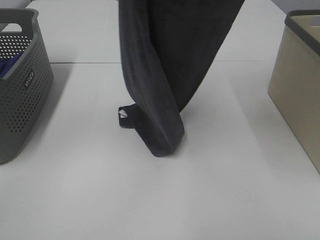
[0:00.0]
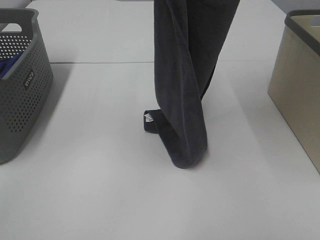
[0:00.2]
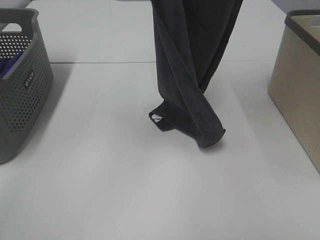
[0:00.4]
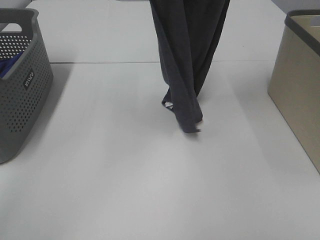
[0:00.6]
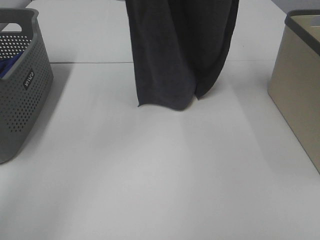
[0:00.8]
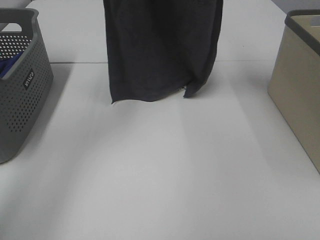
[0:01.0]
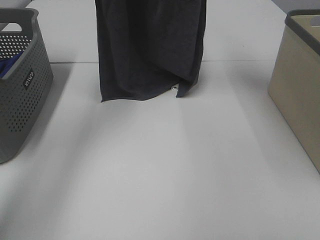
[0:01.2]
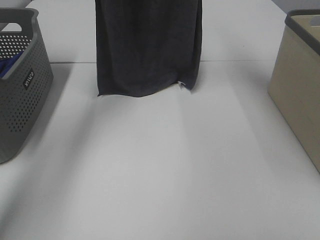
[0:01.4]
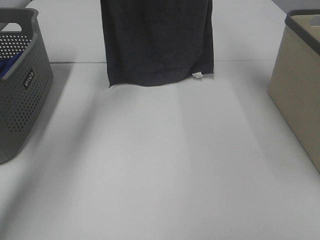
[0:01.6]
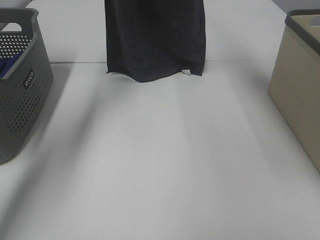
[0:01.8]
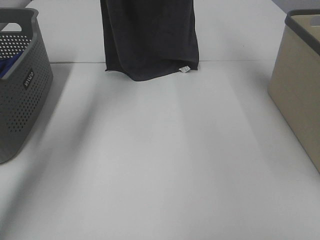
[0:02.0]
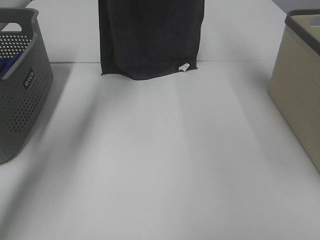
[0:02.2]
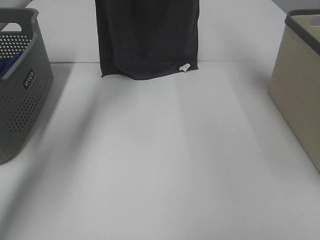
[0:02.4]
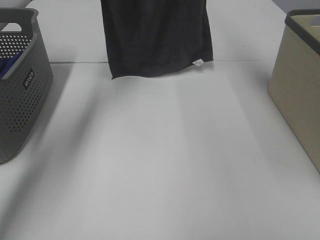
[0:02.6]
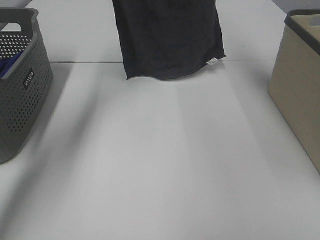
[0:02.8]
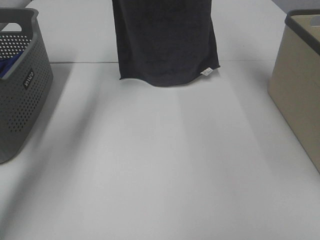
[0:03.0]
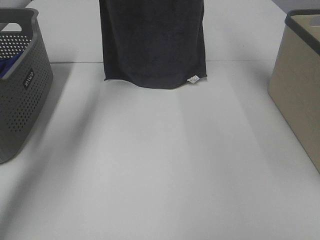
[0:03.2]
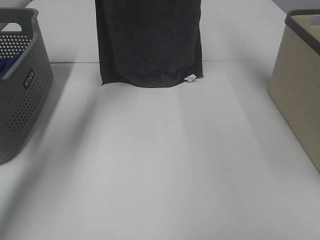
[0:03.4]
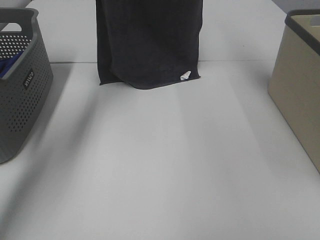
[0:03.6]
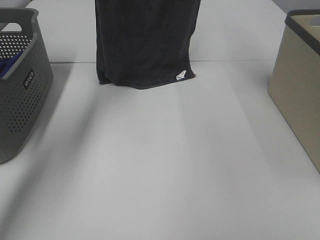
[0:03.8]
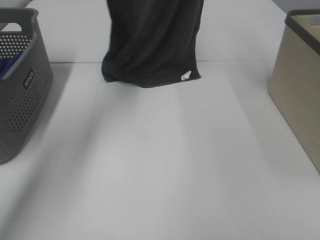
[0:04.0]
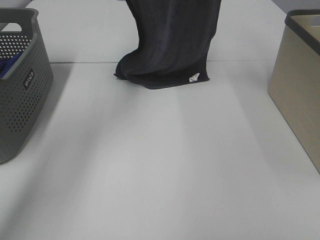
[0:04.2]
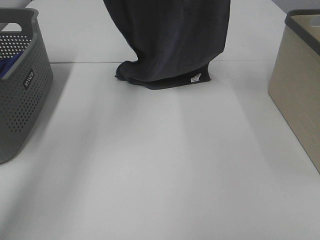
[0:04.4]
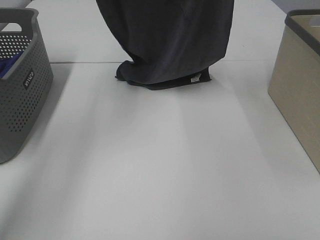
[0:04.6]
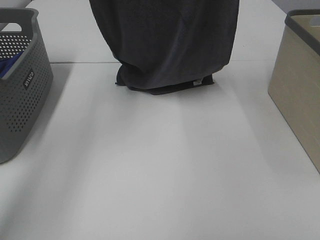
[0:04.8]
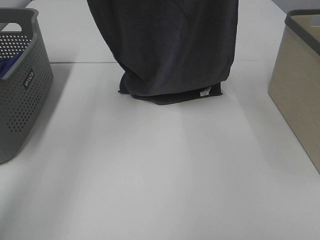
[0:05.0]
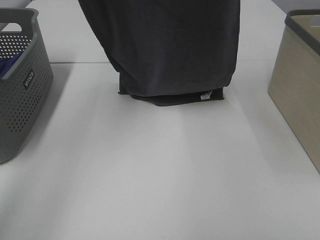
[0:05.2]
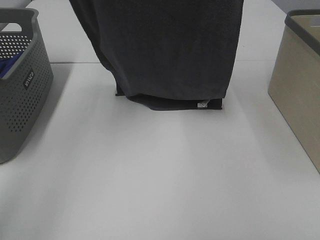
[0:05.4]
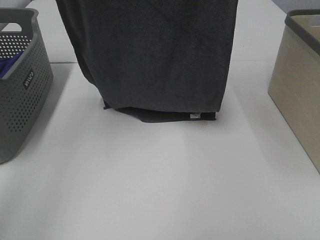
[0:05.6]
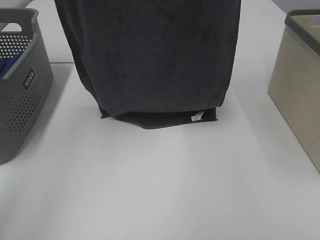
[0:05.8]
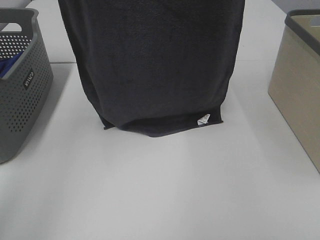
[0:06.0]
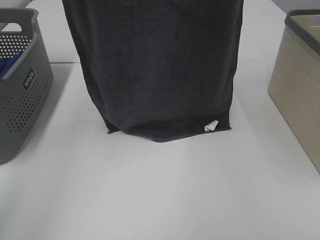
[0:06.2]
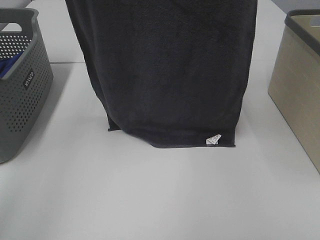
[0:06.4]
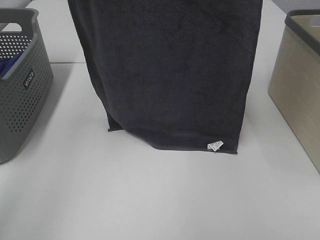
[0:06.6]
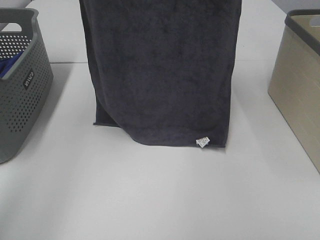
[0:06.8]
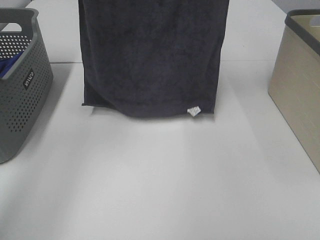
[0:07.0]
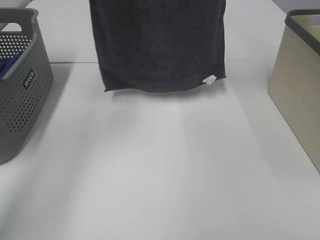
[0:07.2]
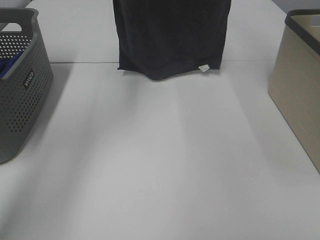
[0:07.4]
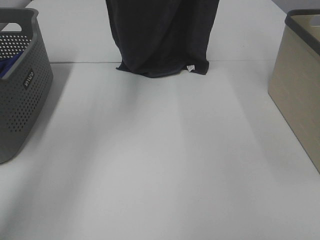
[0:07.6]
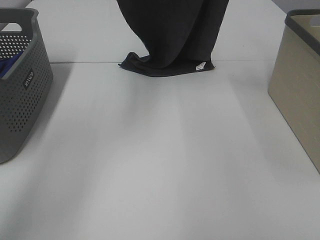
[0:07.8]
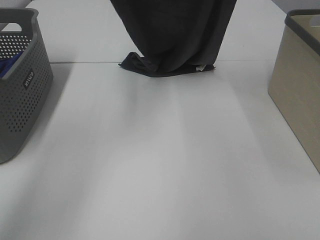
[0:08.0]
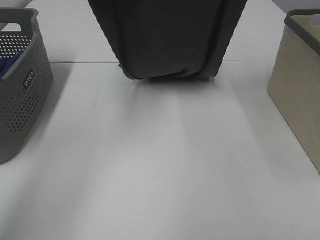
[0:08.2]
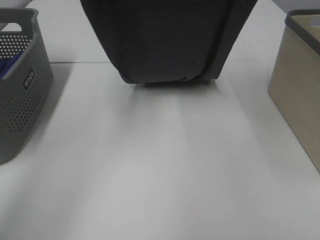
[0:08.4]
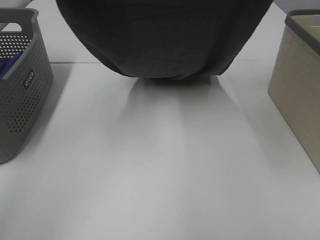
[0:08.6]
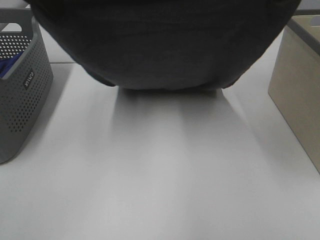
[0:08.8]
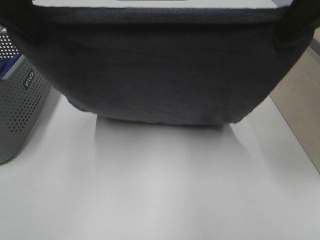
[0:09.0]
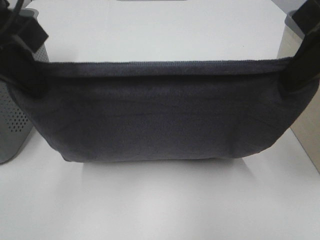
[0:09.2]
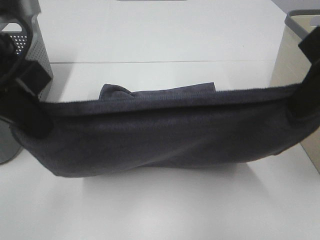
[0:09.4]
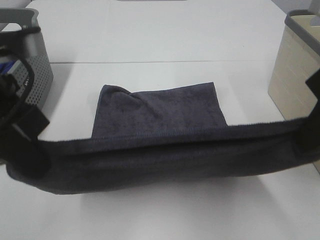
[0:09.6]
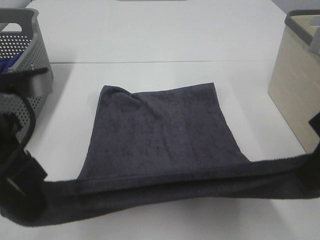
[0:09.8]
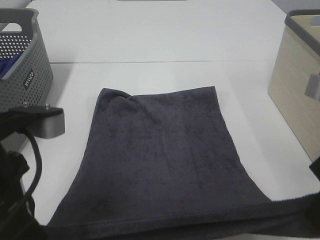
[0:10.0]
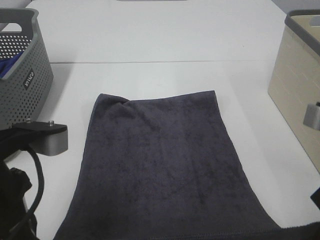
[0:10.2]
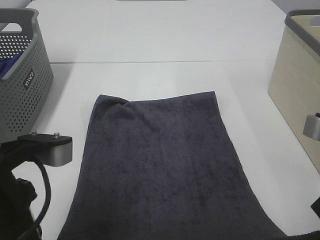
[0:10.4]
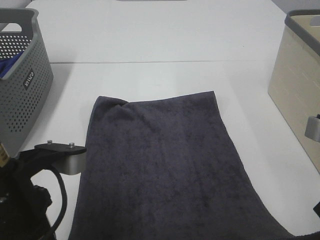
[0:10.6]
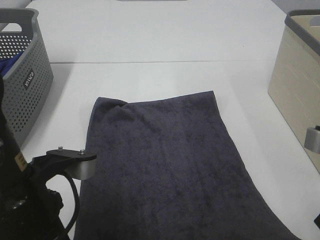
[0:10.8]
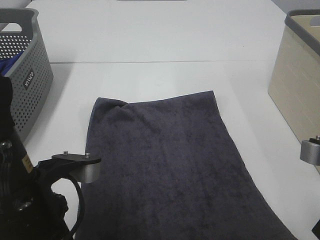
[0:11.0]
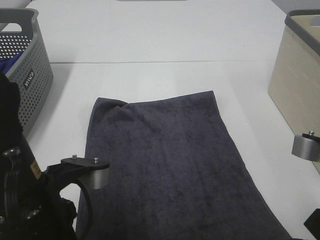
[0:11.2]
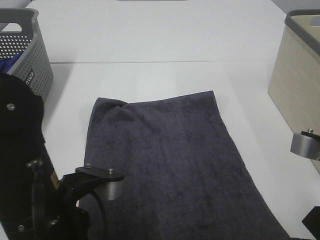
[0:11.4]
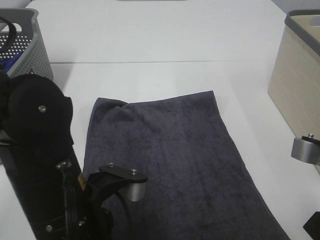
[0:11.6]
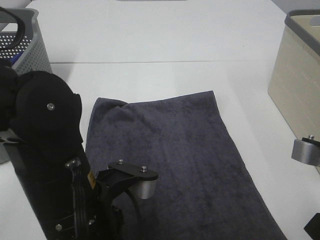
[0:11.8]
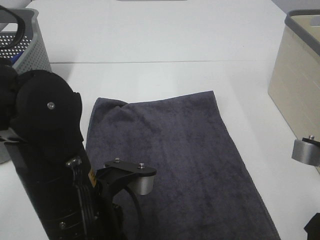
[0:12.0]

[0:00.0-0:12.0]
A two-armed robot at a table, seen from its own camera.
Task of the whole recording: Remove the towel and place it.
Step, 0:00.0 to 0:07.4: Left hand: spread the grey towel flat on the table.
Step, 0:00.0 to 0:07.4: Right hand: spread the grey towel flat on the table.
0:00.0 to 0:01.6: The grippers both shift forward by some 20 cm.
0:01.6 to 0:03.0: The grippers stay close to where they were, moving slightly.
0:03.0 to 0:04.4: Both grippers move backward, about 10 cm.
0:04.4 to 0:06.0: The right gripper is displaced backward by approximately 10 cm; the left gripper travels backward and upward by about 15 cm.
0:06.0 to 0:07.6: The left gripper moves forward and downward, about 15 cm. Meanwhile the right gripper moves forward, about 15 cm.
0:07.6 to 0:09.0: The right gripper moves backward and downward, some 25 cm; the left gripper travels backward by roughly 25 cm.
0:09.0 to 0:10.4: The grippers both shift downward and backward by some 20 cm.
0:10.4 to 0:12.0: The left gripper heads to the right and downward, covering about 10 cm, and opens up. The right gripper opens its fingers.

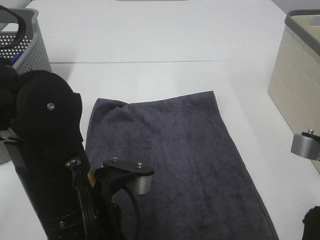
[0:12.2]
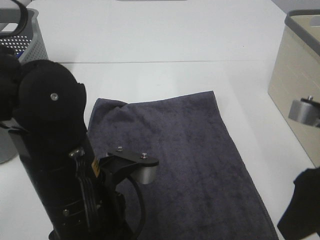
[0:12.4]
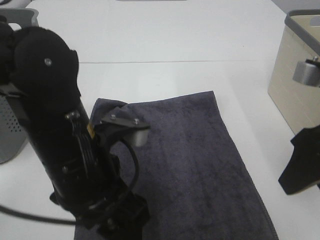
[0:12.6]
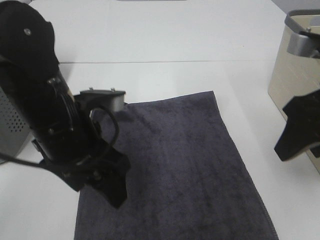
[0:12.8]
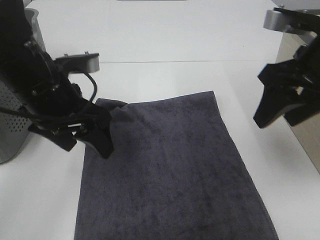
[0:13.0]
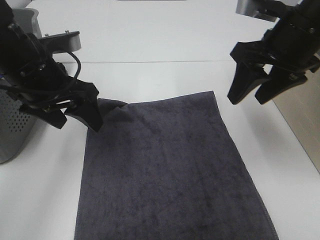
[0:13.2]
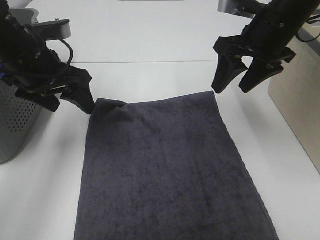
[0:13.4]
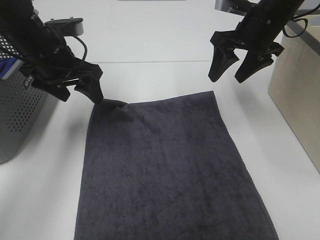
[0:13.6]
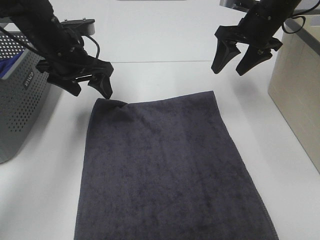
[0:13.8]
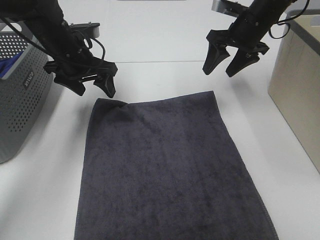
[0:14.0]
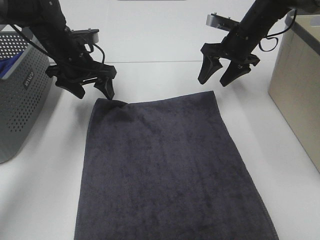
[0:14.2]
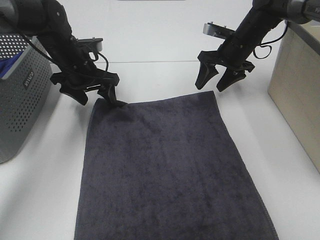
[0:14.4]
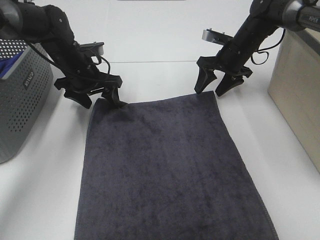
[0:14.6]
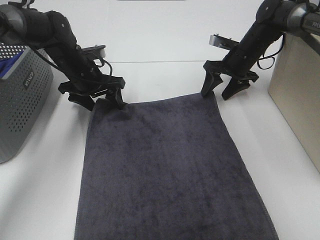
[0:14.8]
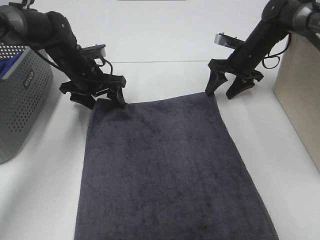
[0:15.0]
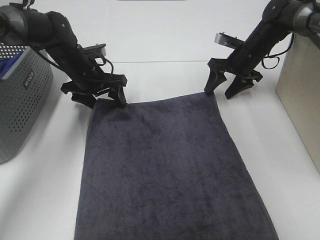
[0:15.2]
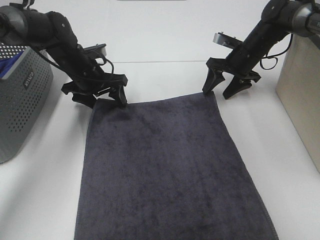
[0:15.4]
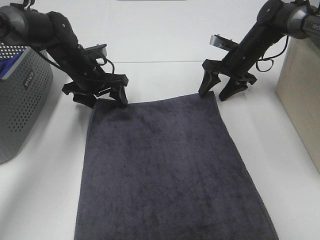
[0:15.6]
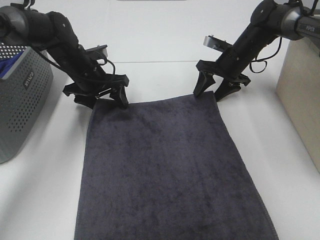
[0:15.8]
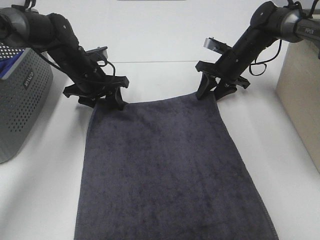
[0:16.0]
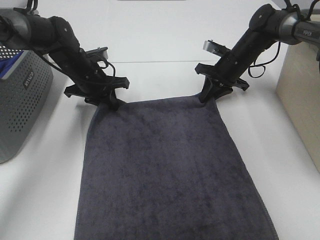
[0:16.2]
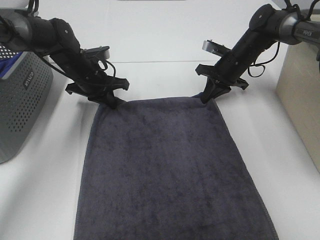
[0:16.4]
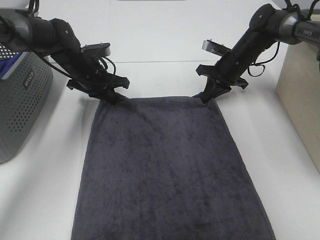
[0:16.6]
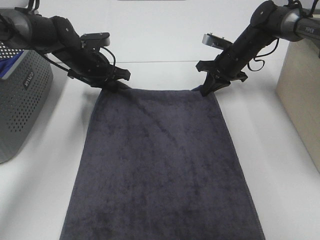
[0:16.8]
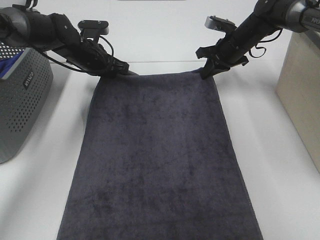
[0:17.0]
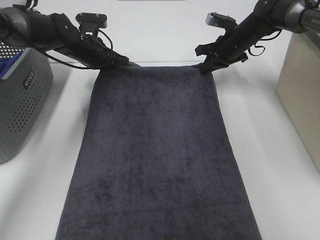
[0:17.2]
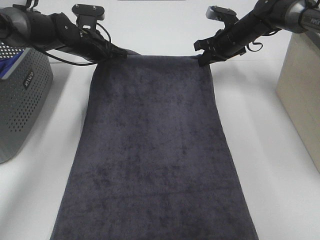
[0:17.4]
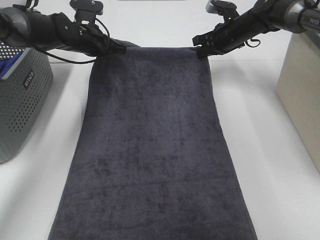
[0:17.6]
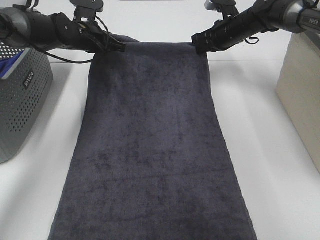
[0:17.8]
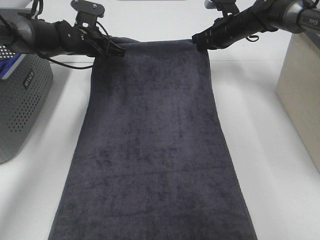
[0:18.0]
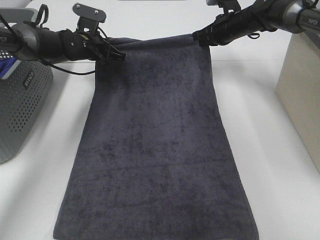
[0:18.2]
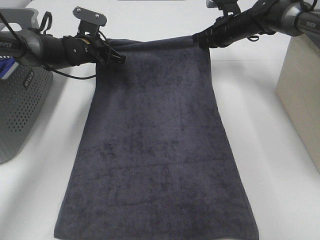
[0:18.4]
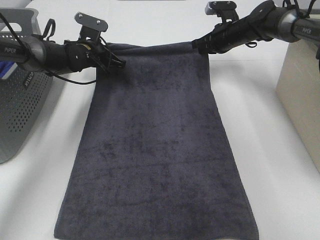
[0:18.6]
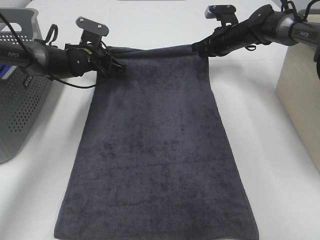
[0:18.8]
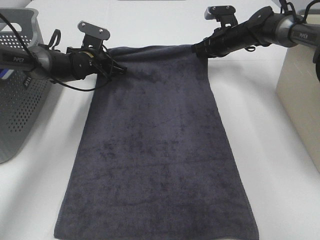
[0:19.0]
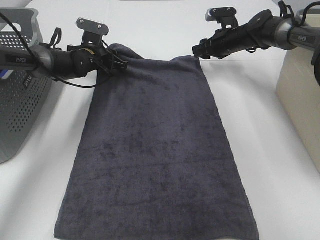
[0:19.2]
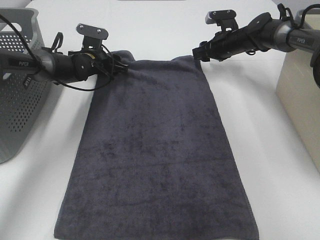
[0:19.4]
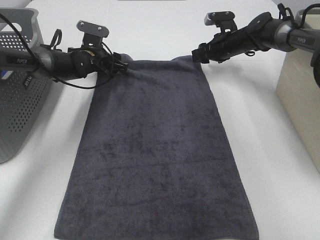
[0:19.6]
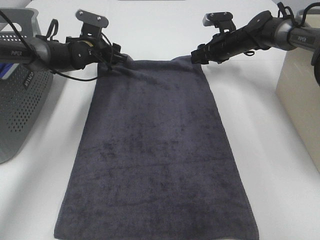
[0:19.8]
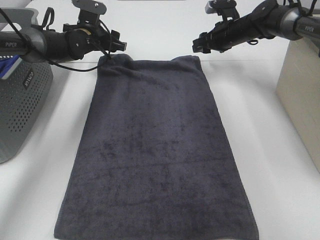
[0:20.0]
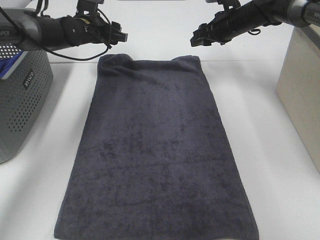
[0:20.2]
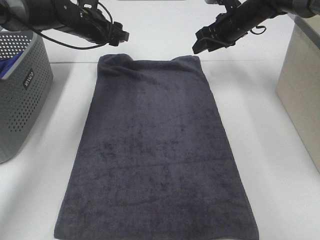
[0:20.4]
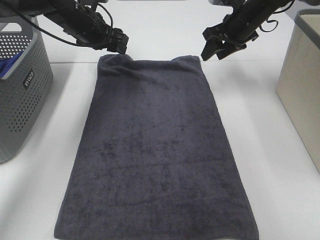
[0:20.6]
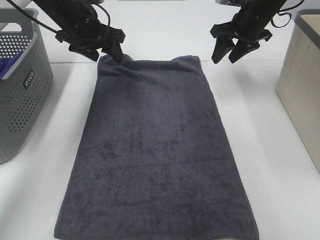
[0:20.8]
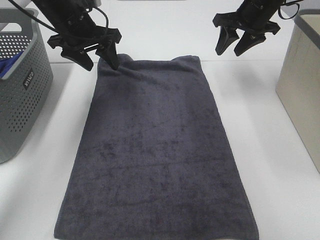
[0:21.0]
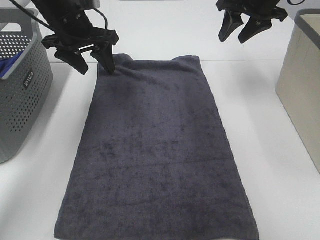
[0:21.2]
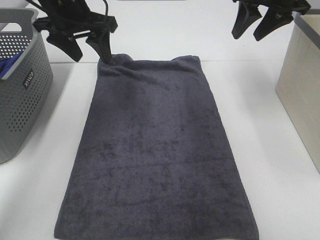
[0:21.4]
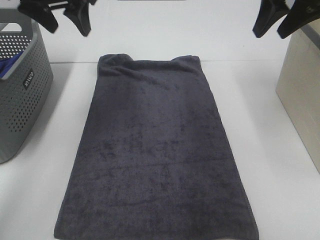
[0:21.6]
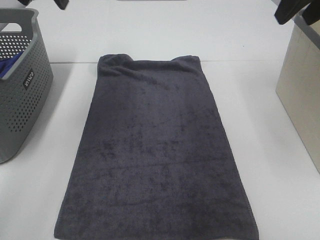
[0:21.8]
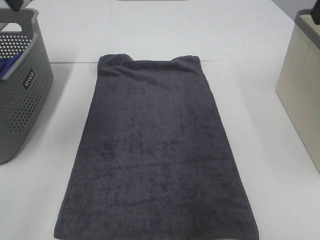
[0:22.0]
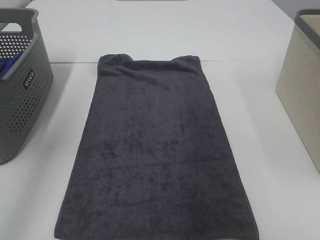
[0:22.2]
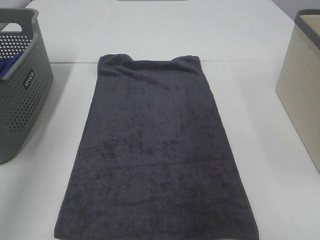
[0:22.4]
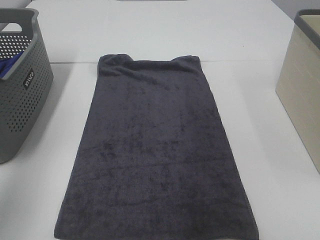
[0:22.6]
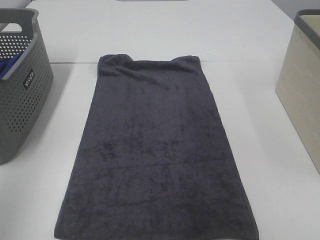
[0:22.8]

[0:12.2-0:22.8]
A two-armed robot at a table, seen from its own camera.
Task of the whole recording: Remove the towel and place it.
0:12.2 to 0:13.8: Both grippers move forward, about 30 cm.
0:13.8 to 0:15.2: Both grippers travel together downward and forward, about 10 cm.
0:15.2 to 0:16.8: The right gripper closes, while the left gripper closes up.
0:16.8 to 0:18.2: The right gripper moves roughly 5 cm.
0:18.2 to 0:19.8: The left gripper opens up. Meanwhile the right gripper opens its fingers.
0:19.8 to 0:21.2: Both grippers travel together upward and backward, roughly 15 cm.
0:21.2 to 0:22.8: The right gripper goes about 40 cm backward. Meanwhile the left gripper heads backward and to the left, covering about 40 cm.
